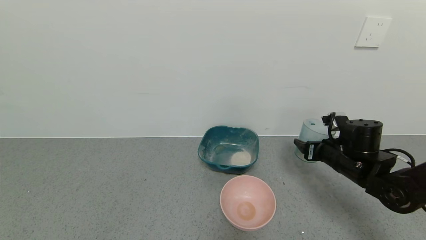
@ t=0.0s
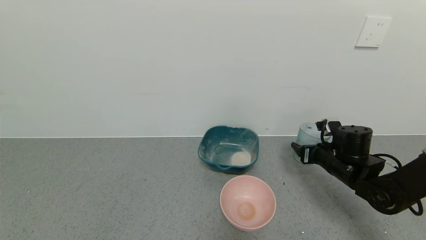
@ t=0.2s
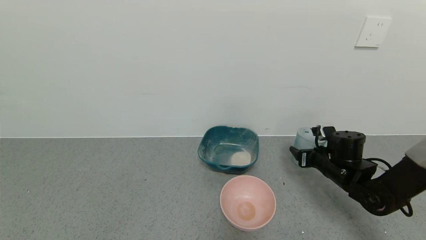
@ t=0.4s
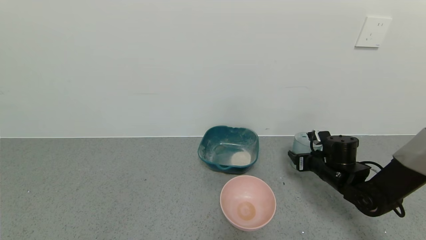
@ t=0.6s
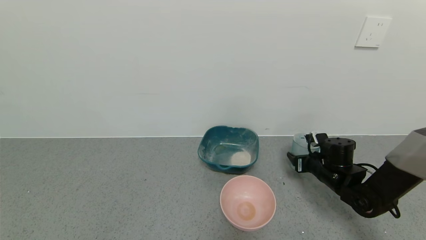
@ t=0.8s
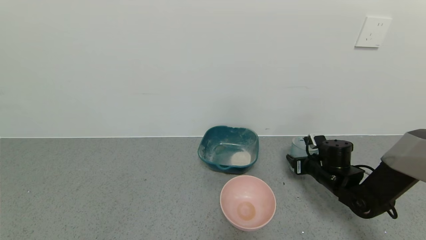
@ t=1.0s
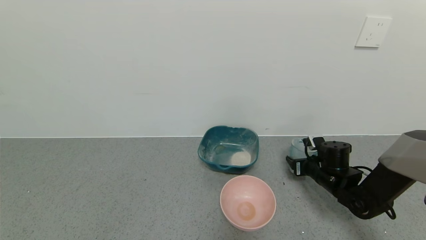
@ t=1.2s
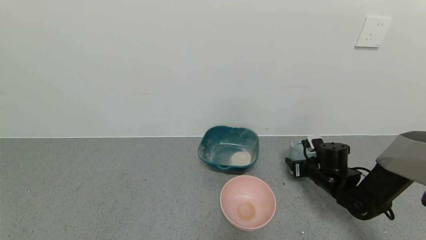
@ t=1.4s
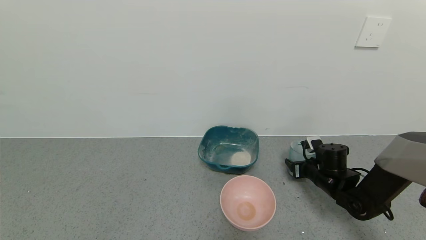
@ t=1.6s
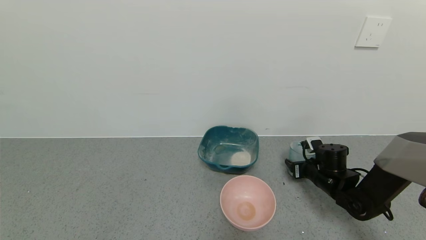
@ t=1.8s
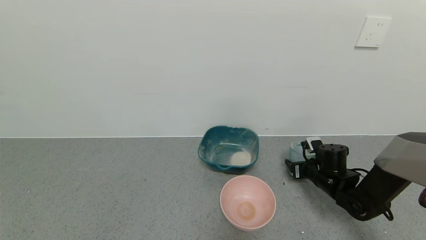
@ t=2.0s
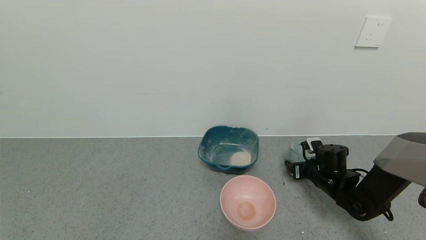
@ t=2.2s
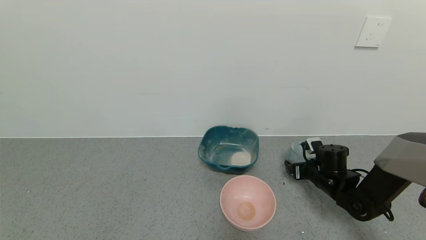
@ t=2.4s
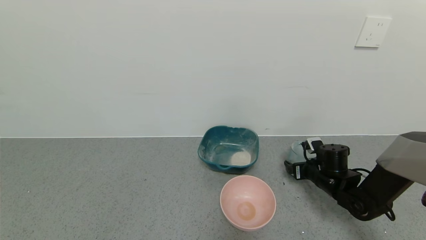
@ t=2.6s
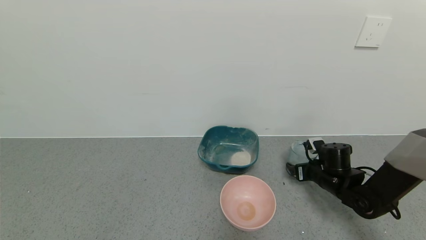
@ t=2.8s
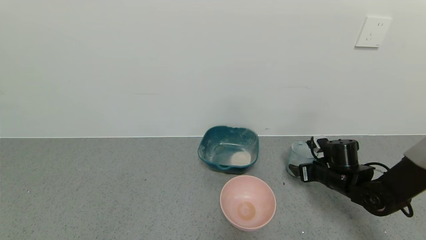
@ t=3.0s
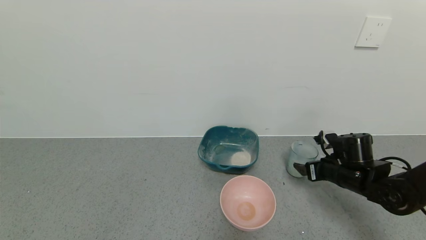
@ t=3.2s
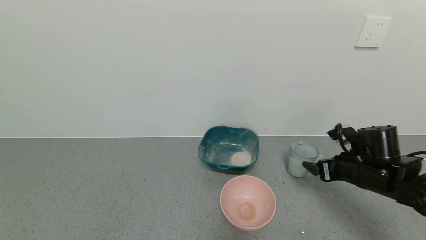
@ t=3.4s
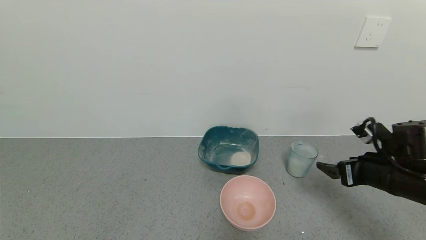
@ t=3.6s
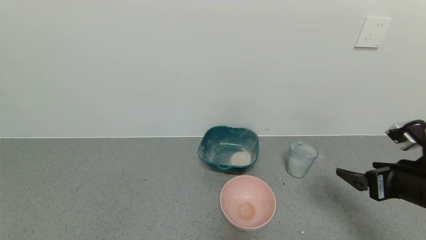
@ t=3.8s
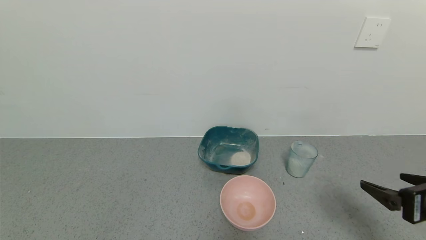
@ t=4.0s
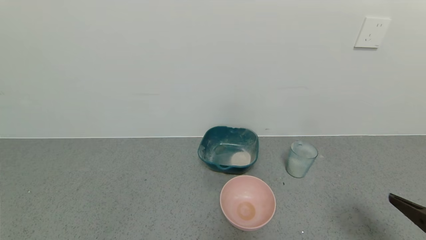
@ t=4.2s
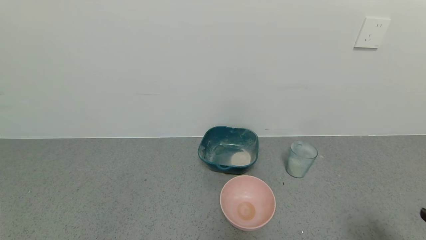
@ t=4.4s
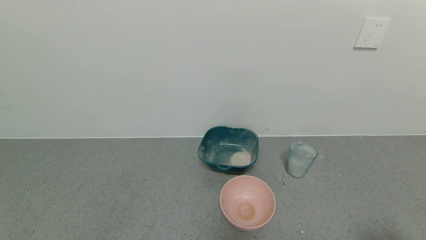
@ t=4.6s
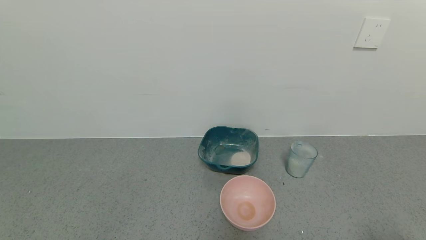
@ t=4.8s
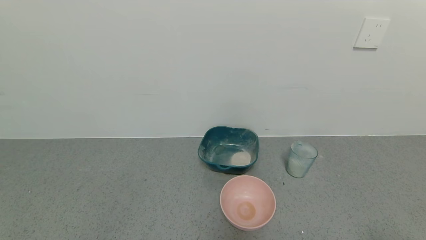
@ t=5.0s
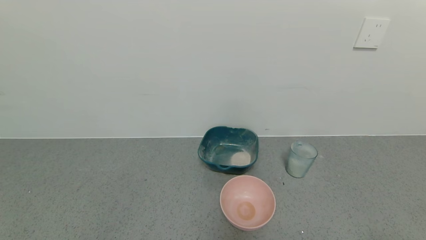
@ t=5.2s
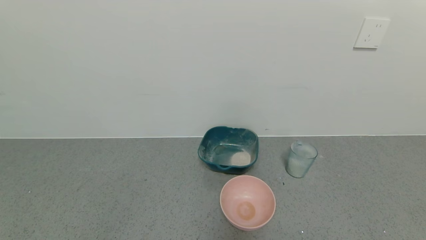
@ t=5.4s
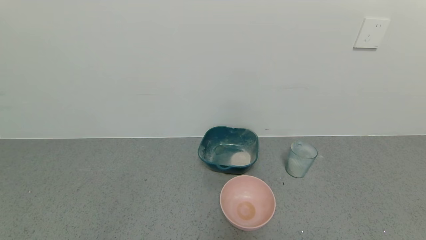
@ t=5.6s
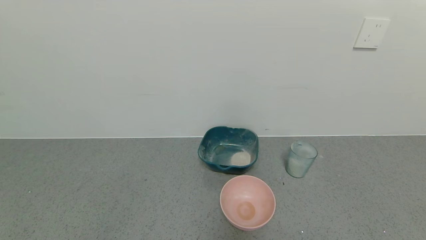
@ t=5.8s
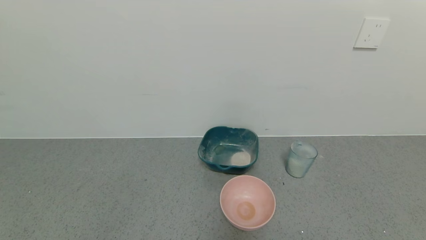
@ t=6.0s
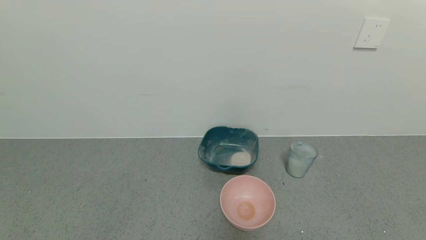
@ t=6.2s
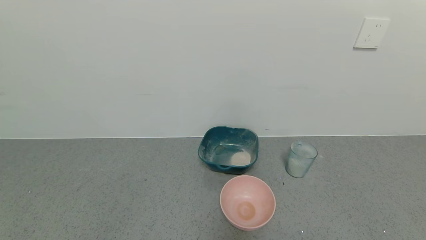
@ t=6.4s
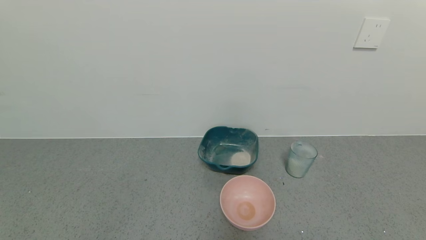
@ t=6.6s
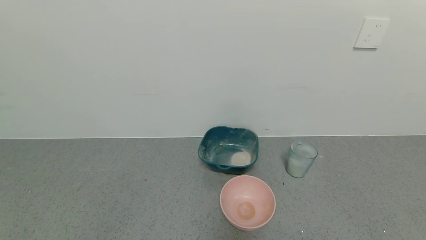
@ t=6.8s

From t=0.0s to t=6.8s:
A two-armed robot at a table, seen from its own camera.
Task of the whole recording: use a gripper to pick up the cup and pour the powder into a bowl or tray.
Step, from t=0.0s to t=3.2s: Place the glass cup down with the right gripper.
From t=0.0s to t=1.4s: The right gripper shifts about 10 cm downward.
From t=1.4s to t=2.8s: The right gripper opens.
From t=2.8s to t=4.0s: The right gripper is displaced backward and upward by about 25 cm.
From t=4.0s to t=5.4s: The right gripper goes about 15 cm backward.
